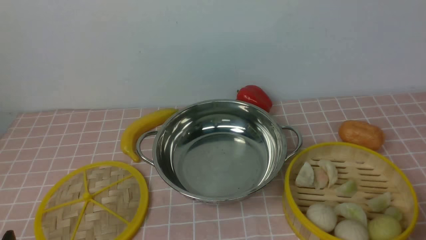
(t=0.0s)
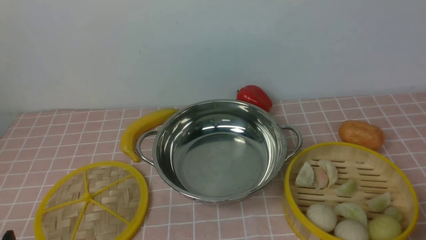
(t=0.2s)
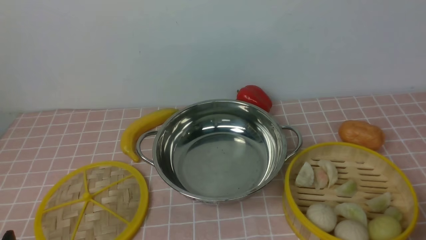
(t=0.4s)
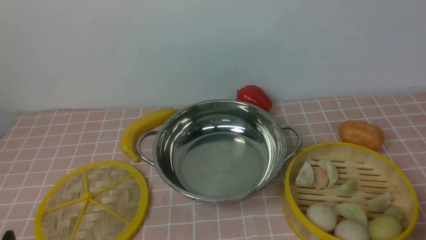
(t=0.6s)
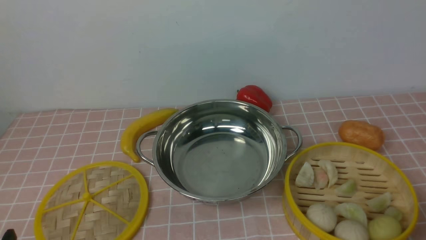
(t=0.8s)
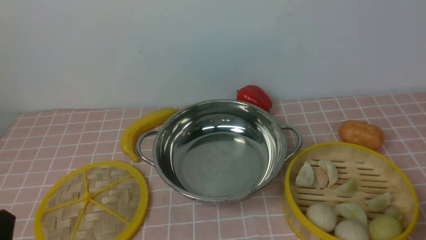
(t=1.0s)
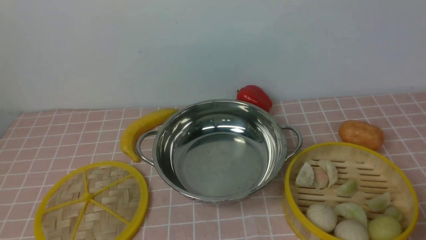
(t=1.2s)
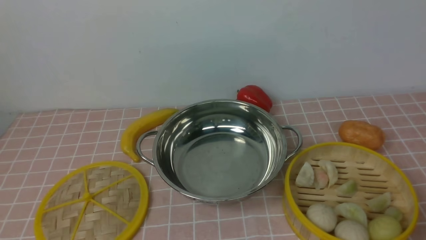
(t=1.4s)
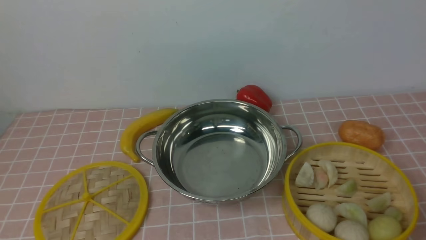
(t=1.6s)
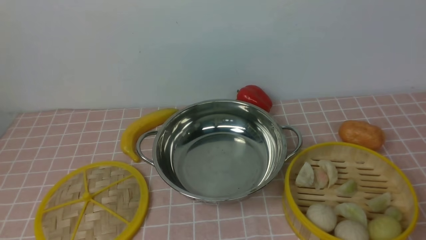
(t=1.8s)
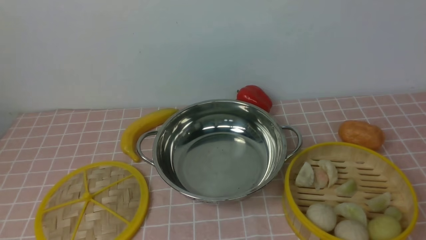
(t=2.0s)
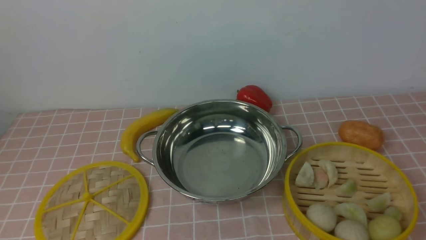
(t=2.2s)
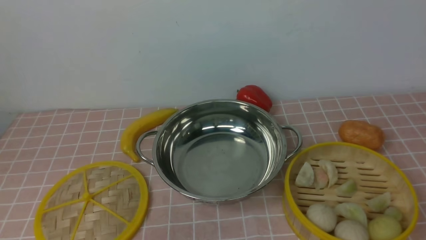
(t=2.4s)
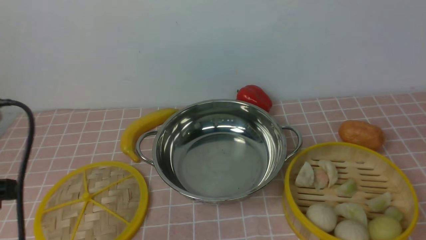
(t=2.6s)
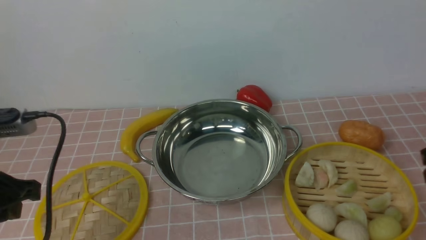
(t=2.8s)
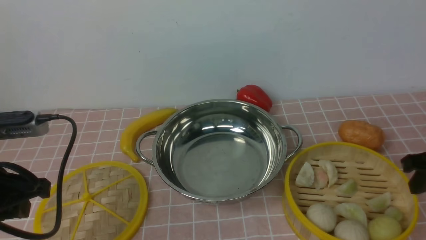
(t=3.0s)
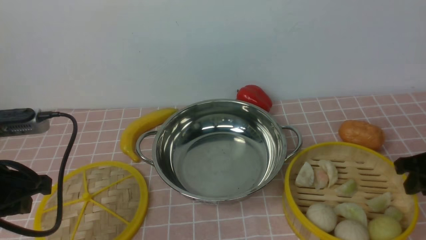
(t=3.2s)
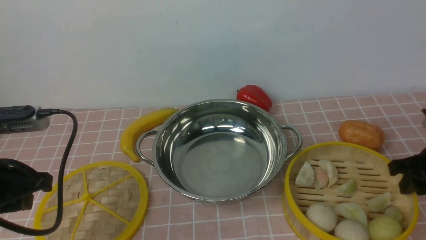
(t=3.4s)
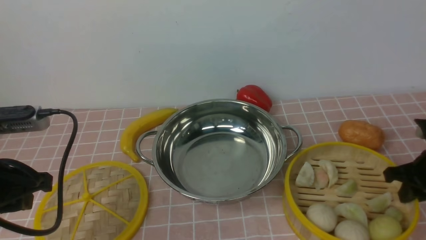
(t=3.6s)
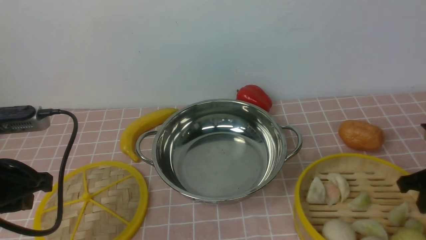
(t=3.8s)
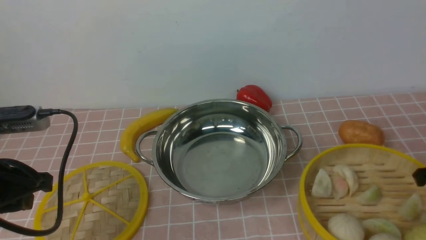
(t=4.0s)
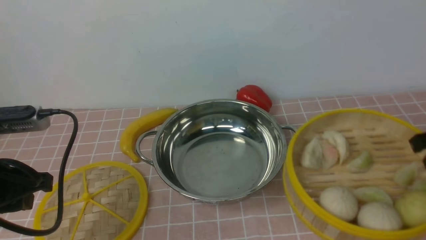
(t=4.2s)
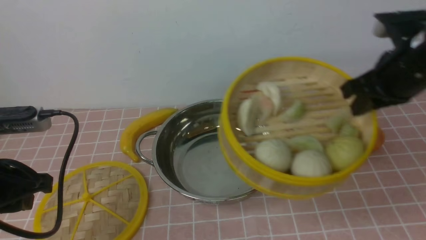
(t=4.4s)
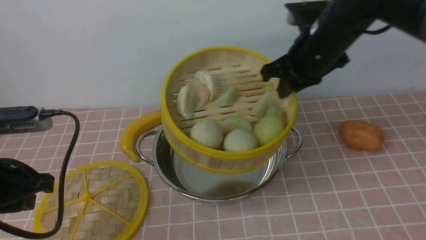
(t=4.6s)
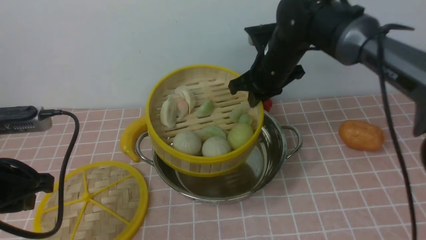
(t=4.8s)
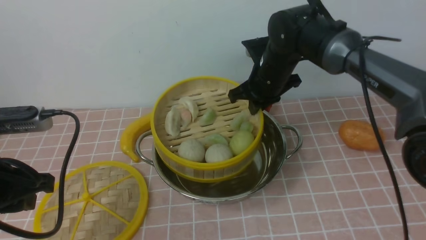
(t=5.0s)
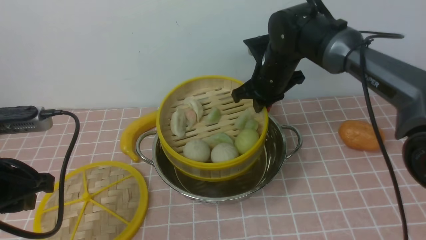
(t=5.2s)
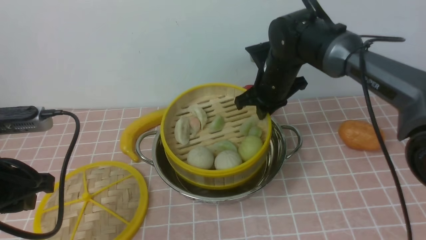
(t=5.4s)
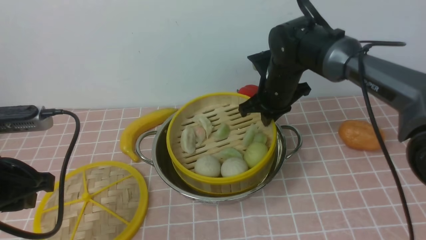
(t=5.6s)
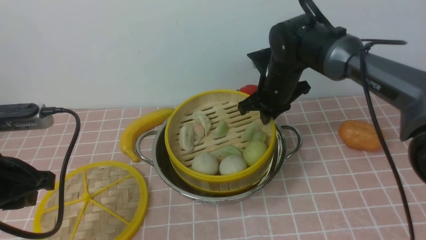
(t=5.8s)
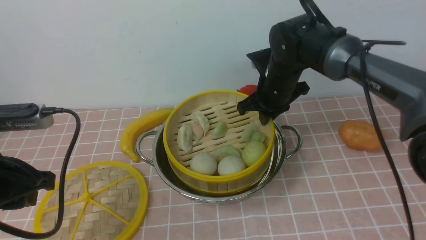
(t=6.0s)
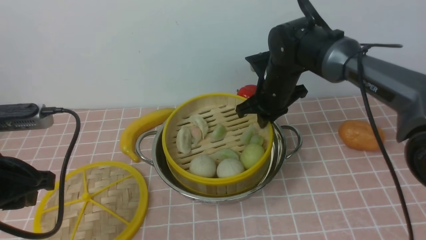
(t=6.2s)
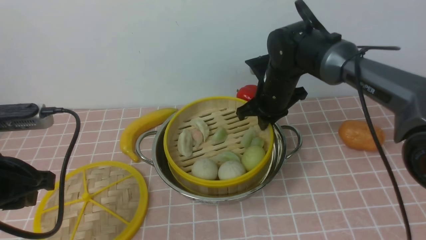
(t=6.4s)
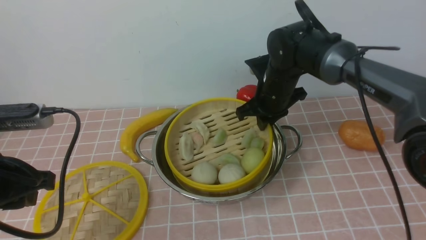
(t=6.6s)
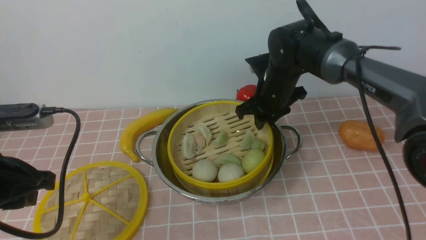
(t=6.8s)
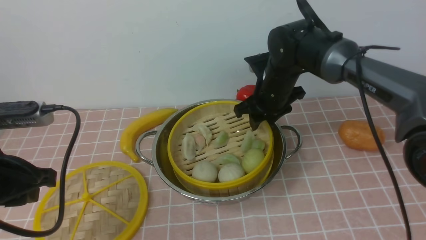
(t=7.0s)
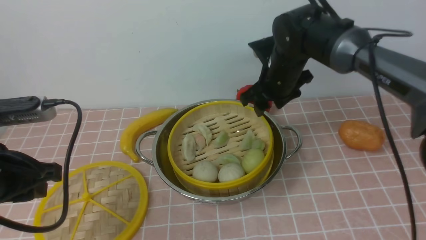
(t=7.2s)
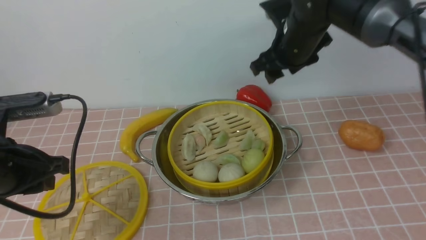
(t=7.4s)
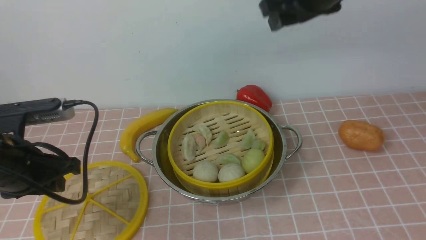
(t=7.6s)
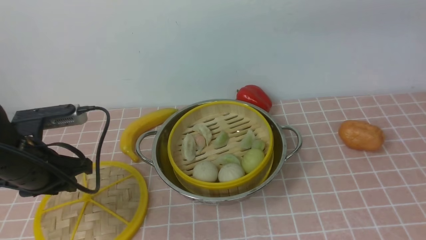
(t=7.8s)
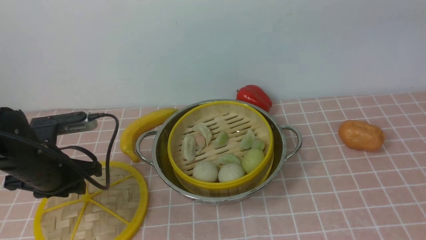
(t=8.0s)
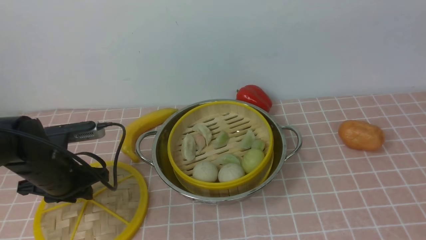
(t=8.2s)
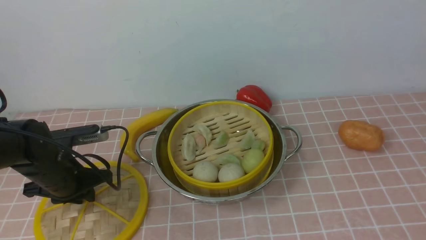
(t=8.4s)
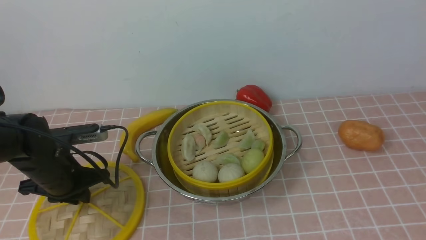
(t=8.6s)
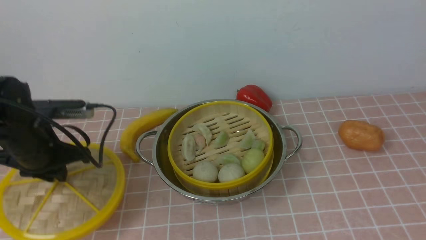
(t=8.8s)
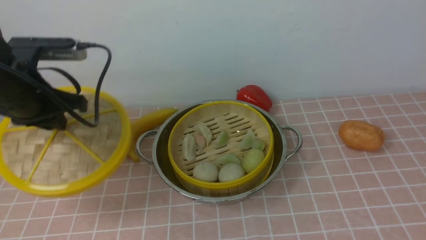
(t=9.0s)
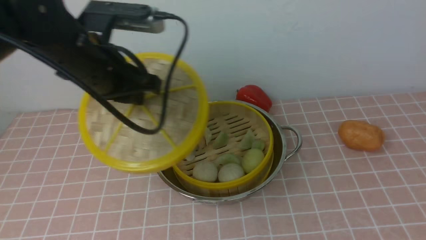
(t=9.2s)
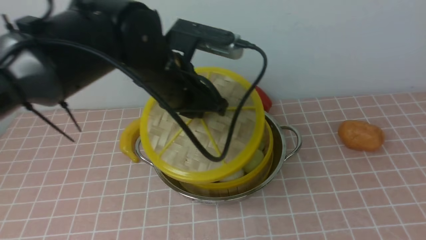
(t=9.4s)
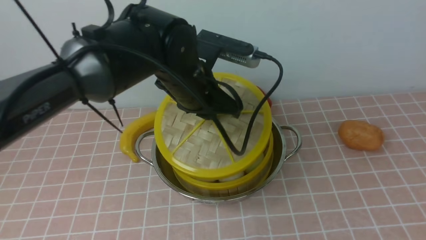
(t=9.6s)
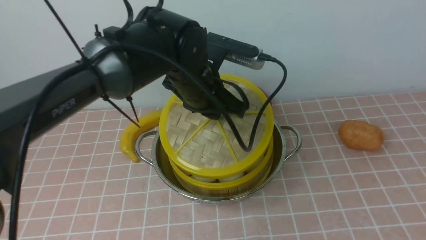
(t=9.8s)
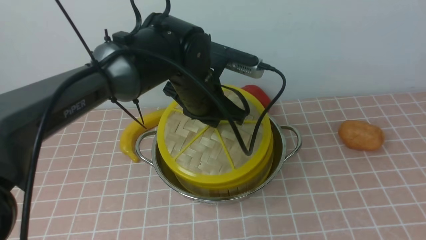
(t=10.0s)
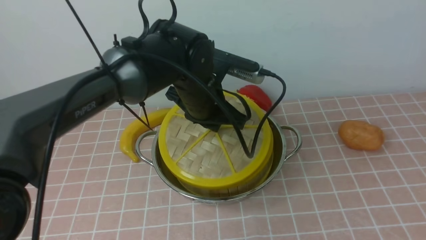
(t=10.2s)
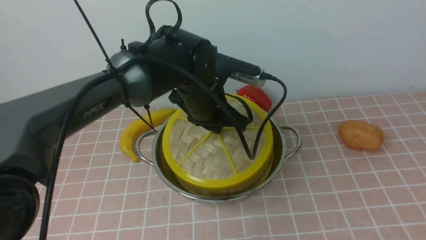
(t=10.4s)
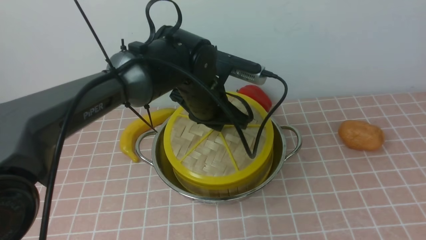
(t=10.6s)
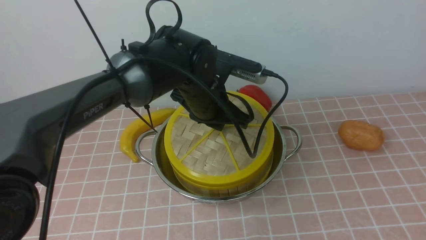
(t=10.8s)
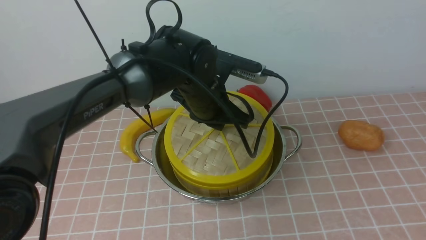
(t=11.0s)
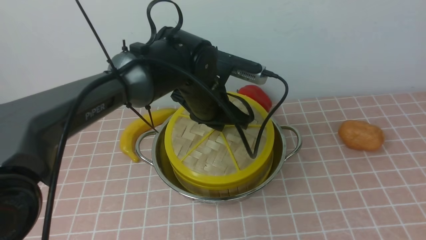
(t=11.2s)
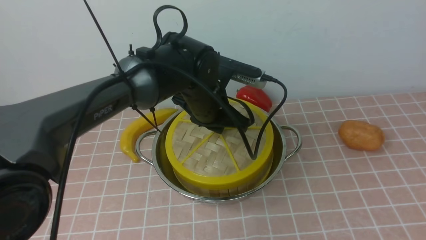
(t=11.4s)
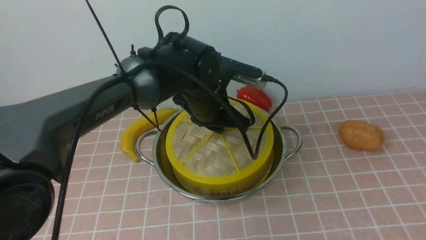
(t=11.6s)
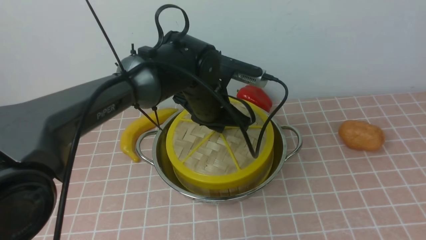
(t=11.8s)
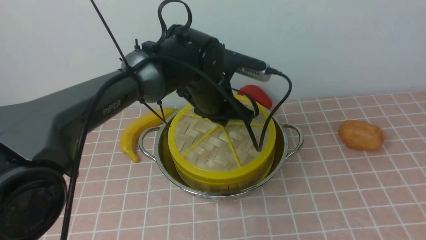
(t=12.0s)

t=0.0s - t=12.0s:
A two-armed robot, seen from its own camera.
Task of the whole recording: place the steamer in the pot on the pink tablecloth, and put the lid on the steamer.
Step, t=0.0s - t=3.8s: use the right arm to lift the steamer closest to it.
Step, t=4.2s - t=7.0s: use the right arm to put the steamer into the iron steamer pot in the middle.
Step, t=7.2s - t=8.6s: use the left arm to lift the lid of the steamer.
t=1.6s - t=3.0s: Both grippers move forward, about 20 cm.
t=3.0s - t=4.4s: The right gripper travels to the left, forward and upward by approximately 15 cm, and closes.
t=4.4s - t=6.0s: The right gripper travels to the left, downward and forward by some 20 cm.
t=6.0s - t=7.6s: The right gripper goes about 20 cm upward, and opens its fingers. Meanwhile the left gripper moves some 5 cm.
t=7.6s - t=9.0s: The left gripper moves forward, some 10 cm, and goes downward and returns, about 10 cm each way, while the right gripper moves backward and to the right, approximately 30 cm.
t=9.0s - t=10.4s: The left gripper heads to the right, covering approximately 20 cm.
t=10.4s - t=12.0s: The grippers make only small movements.

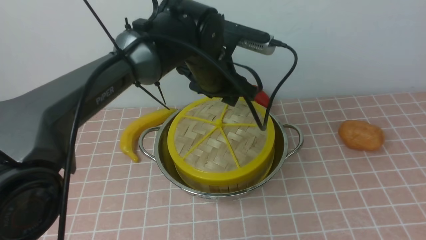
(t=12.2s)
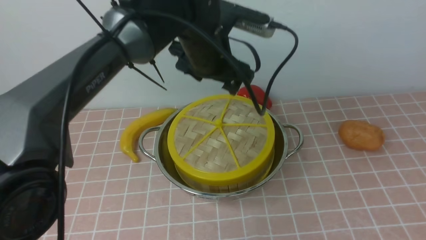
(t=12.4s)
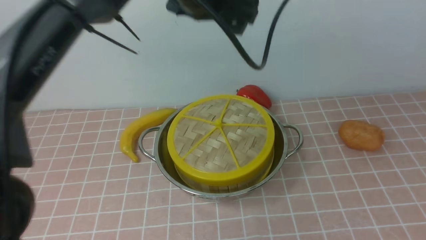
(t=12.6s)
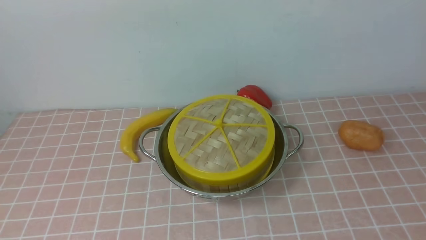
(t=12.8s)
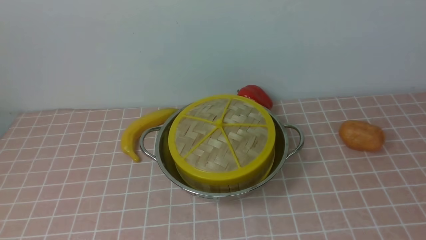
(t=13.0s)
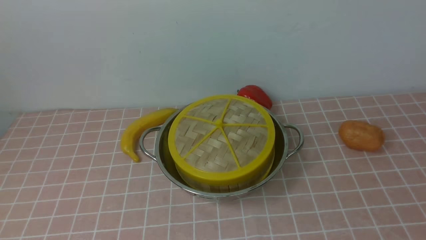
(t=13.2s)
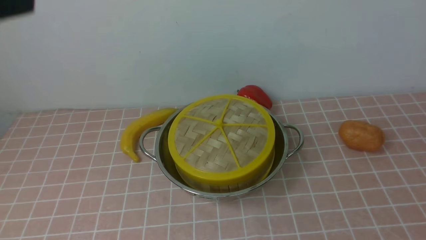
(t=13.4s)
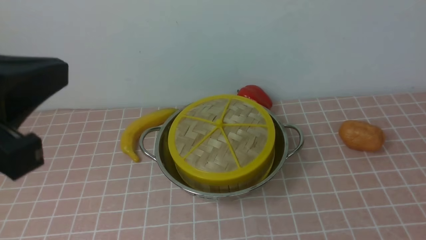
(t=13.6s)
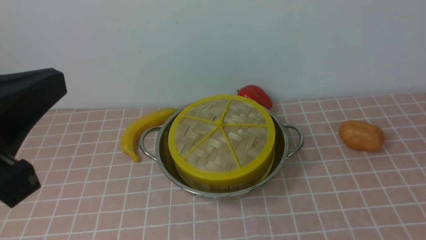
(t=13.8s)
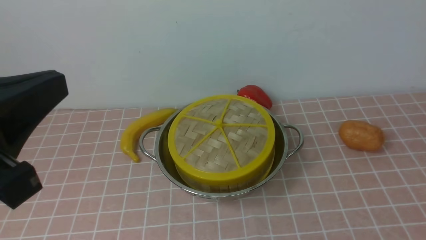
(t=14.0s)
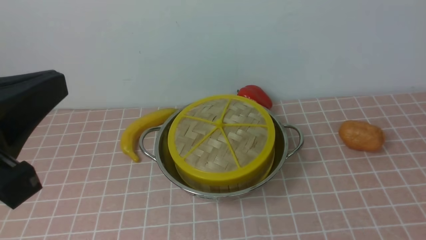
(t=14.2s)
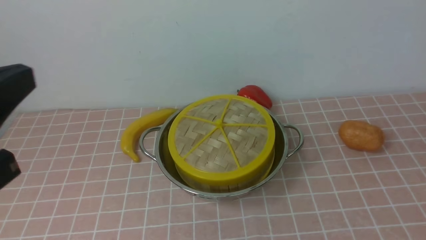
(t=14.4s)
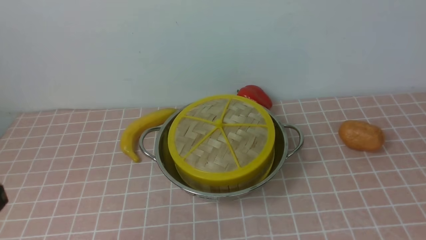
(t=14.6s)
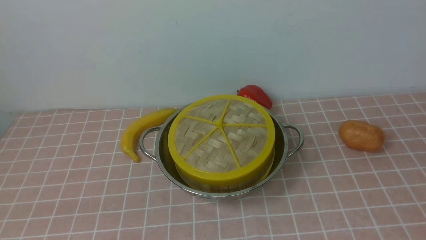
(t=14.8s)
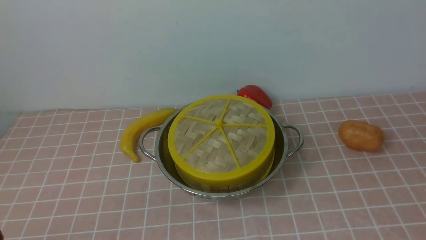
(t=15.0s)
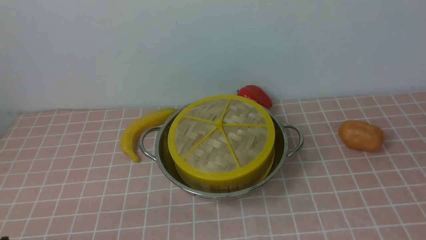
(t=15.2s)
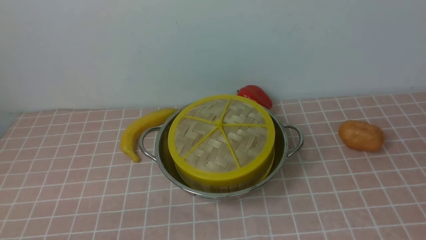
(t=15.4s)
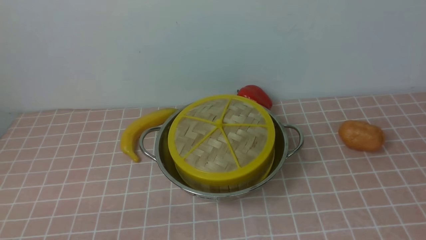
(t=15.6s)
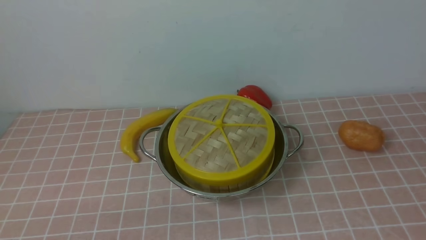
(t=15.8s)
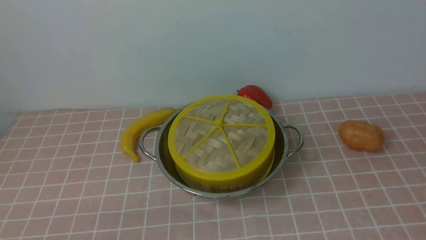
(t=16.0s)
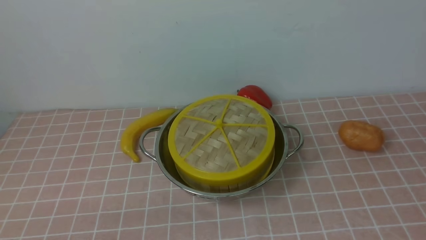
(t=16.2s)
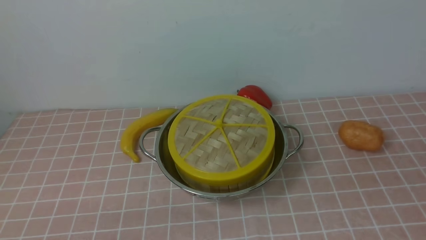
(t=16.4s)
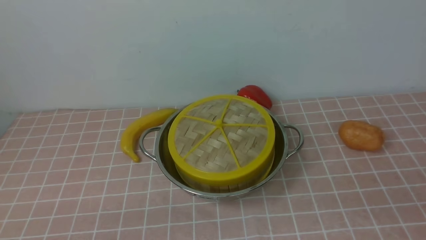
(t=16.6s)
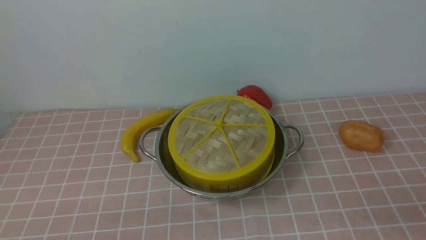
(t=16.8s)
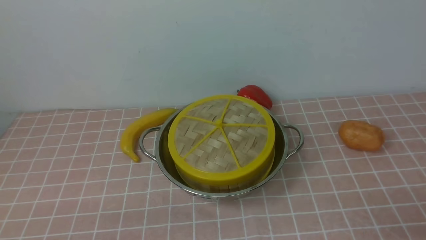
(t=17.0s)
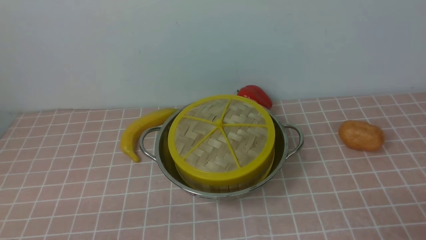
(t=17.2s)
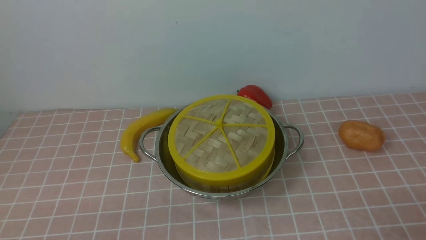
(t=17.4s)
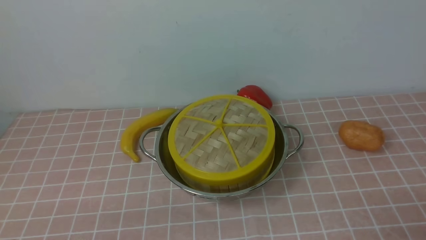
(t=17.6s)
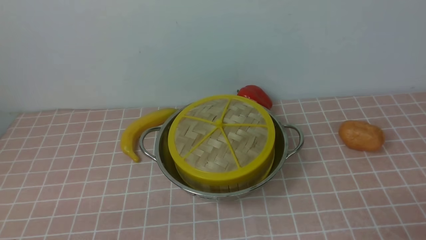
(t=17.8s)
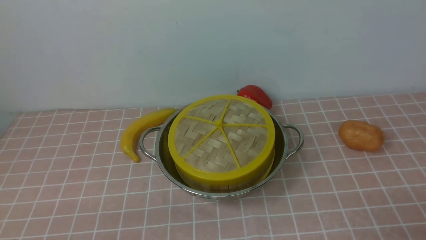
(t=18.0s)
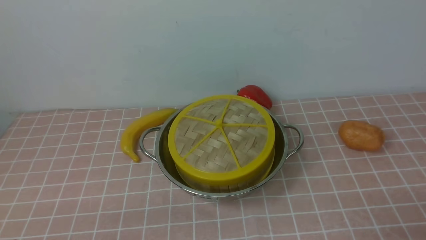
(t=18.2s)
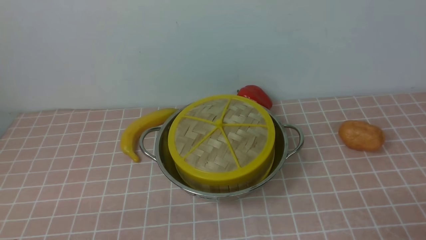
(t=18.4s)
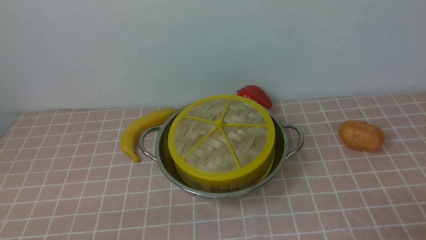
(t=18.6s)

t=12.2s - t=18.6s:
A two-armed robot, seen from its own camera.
Task of the whole recording: place the steamer in the pot on the pink tablecloth, and put the lid on the steamer.
t=12.2s - t=13.8s: The right gripper moves downward, approximately 15 cm, and closes; the left gripper heads backward and to the left, covering about 35 cm, and closes.
t=13.8s - t=15.4s: The left gripper travels downward by roughly 20 cm.
t=17.0s - t=18.6s: Both grippers stay put.
